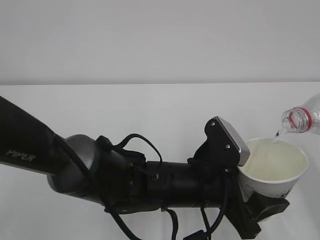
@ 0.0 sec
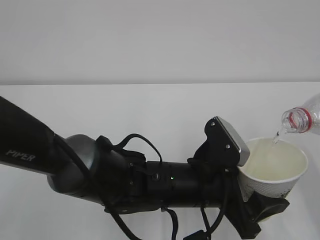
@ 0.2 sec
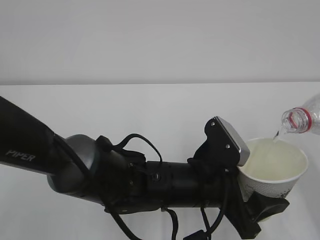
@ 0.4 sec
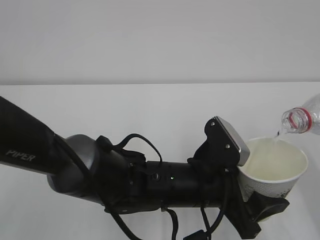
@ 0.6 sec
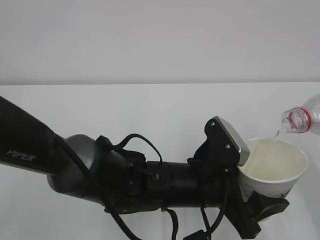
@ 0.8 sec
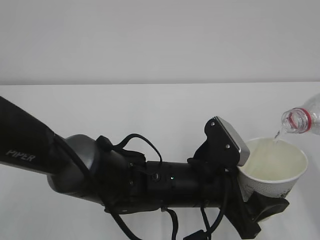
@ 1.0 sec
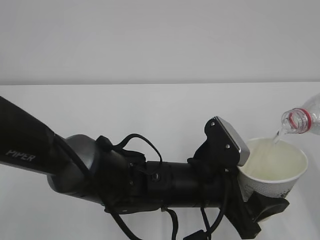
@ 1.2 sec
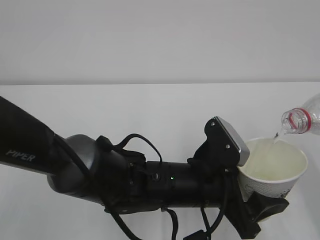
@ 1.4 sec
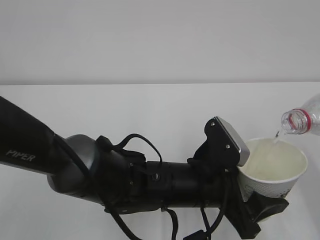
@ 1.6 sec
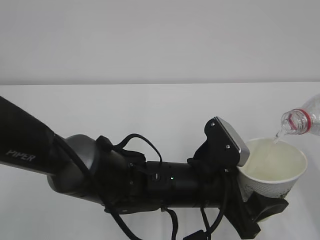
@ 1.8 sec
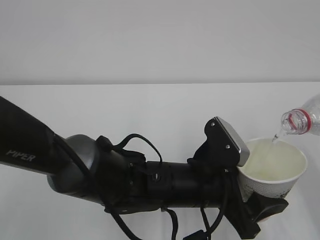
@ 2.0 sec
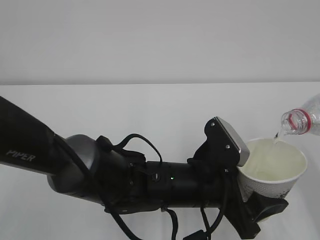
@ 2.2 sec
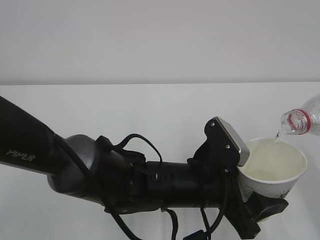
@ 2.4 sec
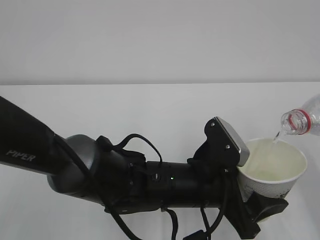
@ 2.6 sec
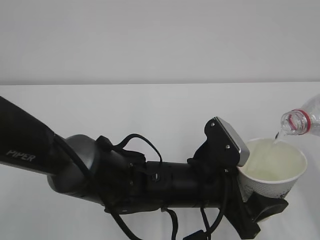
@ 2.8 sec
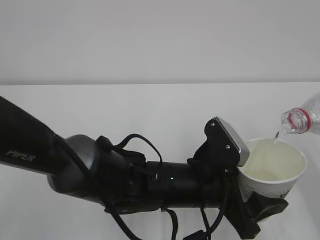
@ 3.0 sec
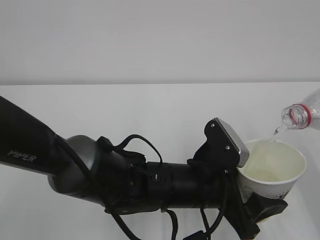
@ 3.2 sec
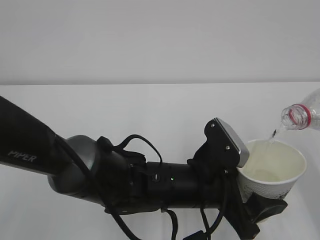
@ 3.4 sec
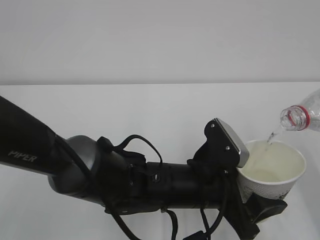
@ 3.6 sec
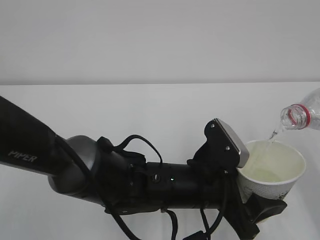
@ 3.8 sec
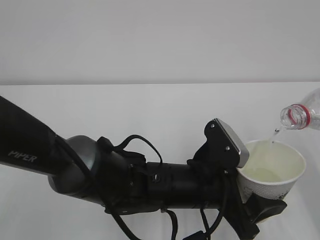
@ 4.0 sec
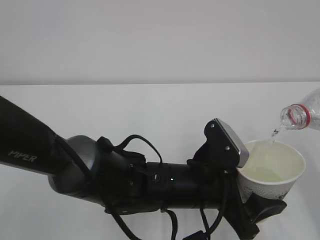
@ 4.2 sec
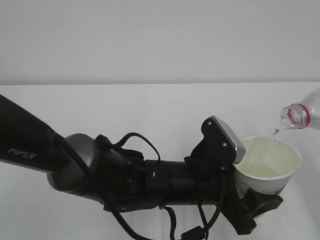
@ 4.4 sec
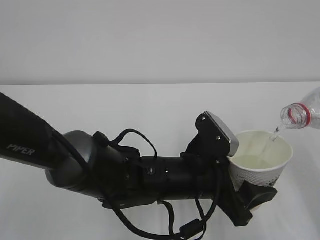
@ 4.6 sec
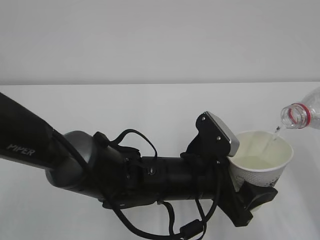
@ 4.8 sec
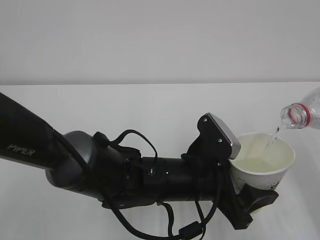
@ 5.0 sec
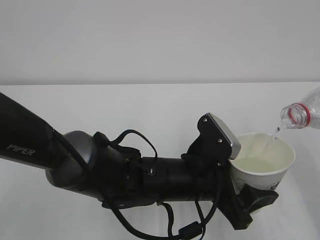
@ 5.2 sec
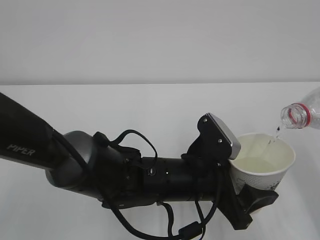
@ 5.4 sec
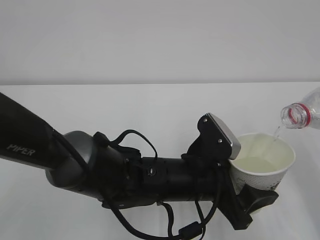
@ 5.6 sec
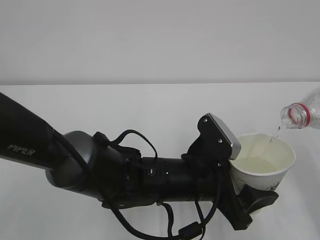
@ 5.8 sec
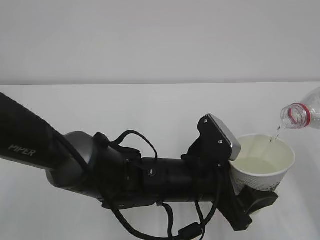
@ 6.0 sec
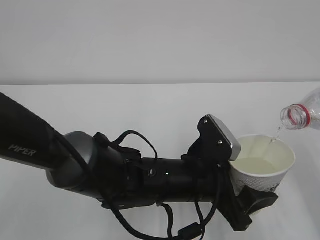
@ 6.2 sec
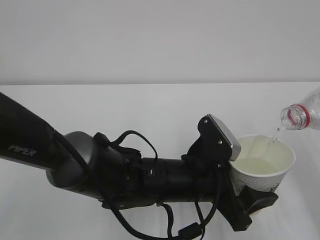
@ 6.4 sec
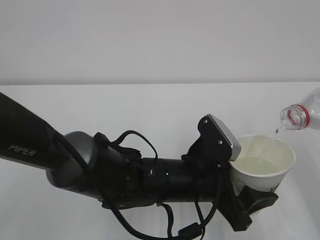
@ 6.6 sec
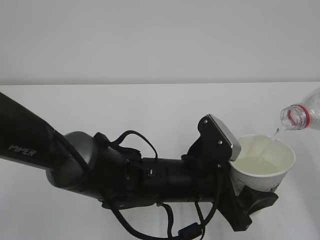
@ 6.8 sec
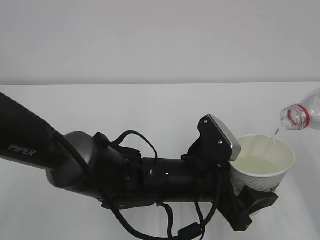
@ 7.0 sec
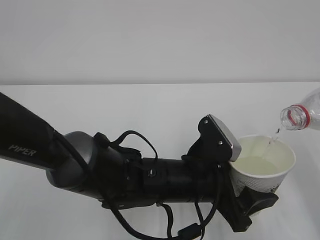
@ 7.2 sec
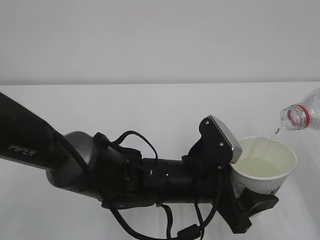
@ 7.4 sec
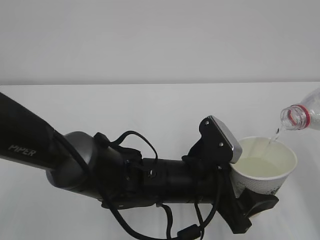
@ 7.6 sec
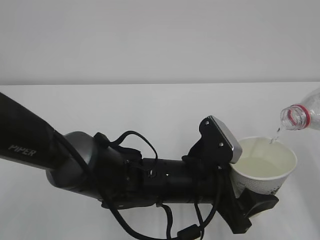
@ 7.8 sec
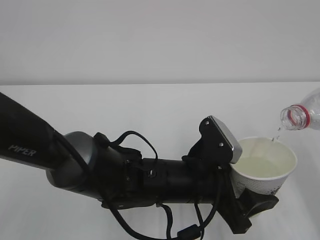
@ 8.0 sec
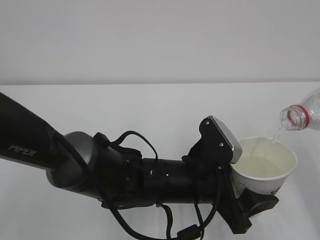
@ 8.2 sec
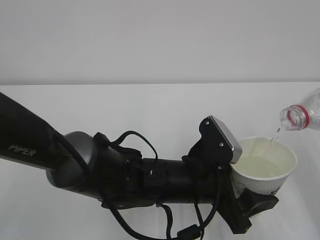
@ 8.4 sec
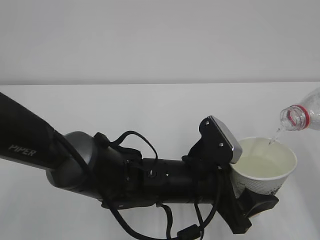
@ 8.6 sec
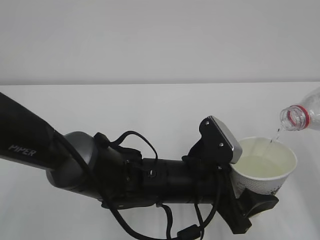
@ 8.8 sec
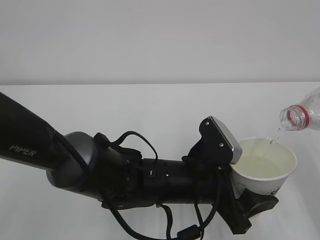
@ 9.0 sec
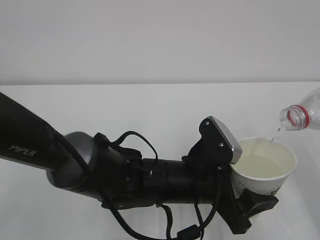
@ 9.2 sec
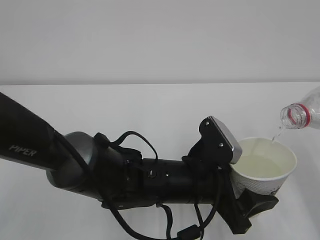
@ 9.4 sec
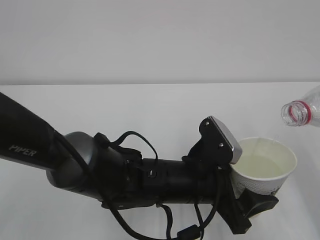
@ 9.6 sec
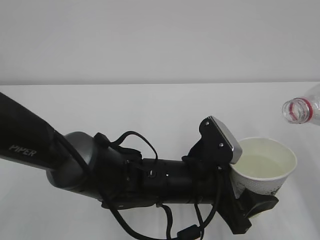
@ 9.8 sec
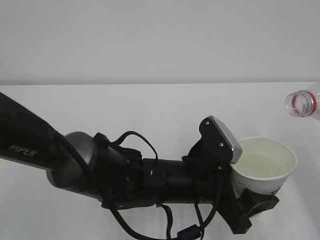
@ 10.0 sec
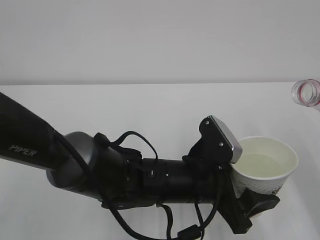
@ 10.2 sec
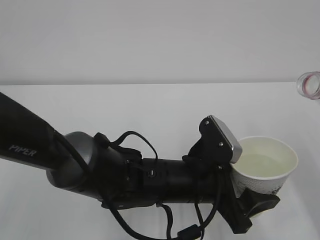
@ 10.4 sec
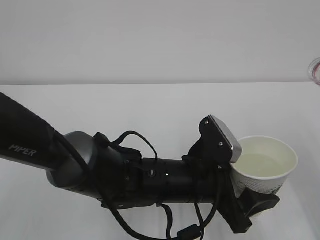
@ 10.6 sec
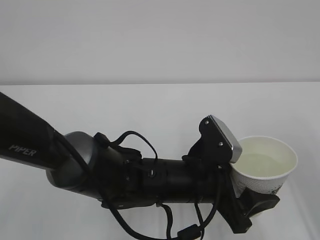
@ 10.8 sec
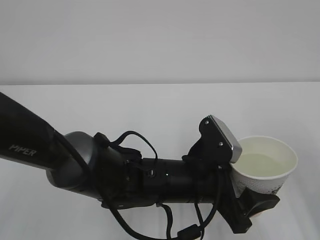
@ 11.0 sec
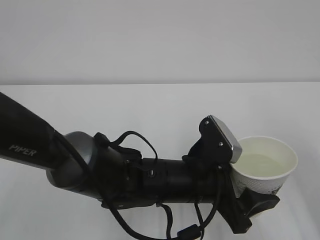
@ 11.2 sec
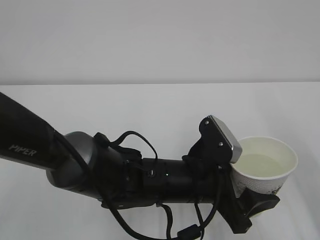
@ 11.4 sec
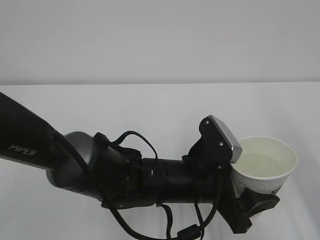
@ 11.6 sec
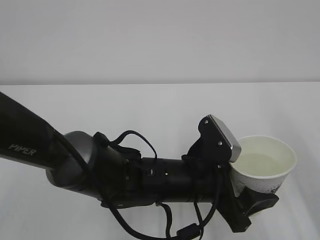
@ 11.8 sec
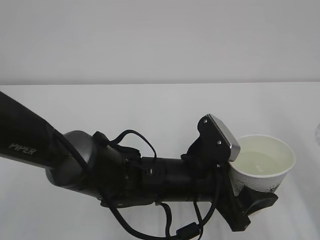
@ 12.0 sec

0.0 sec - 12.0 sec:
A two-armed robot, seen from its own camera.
0.0 sec - 7.6 sec: Both grippers stay about where they are.
7.6 sec - 9.0 sec: Both grippers stay put.

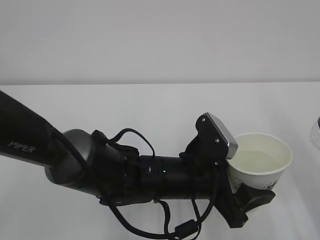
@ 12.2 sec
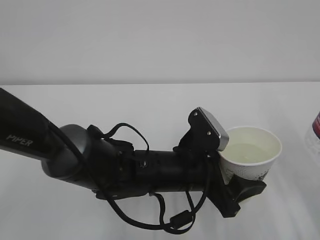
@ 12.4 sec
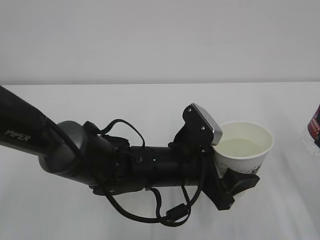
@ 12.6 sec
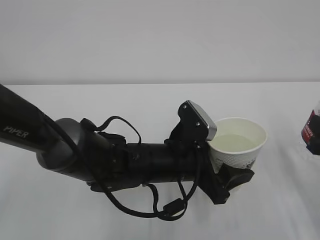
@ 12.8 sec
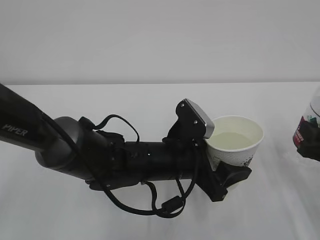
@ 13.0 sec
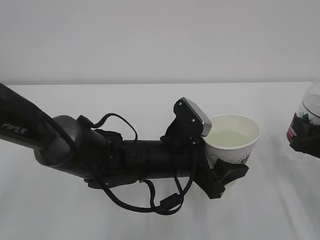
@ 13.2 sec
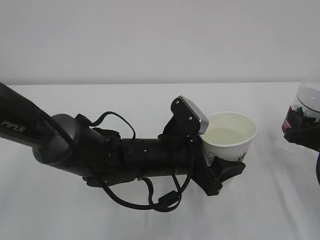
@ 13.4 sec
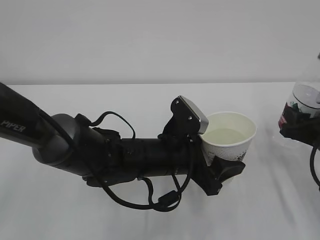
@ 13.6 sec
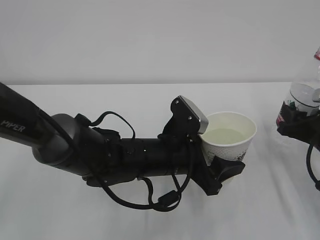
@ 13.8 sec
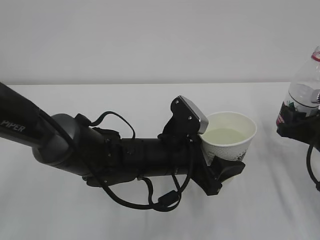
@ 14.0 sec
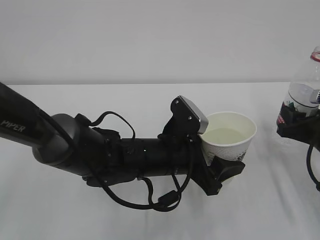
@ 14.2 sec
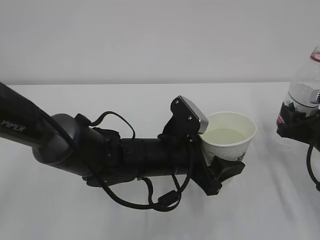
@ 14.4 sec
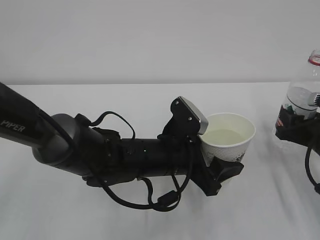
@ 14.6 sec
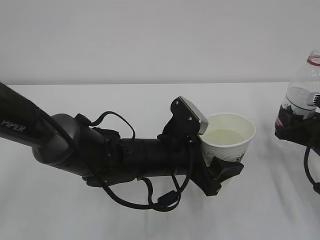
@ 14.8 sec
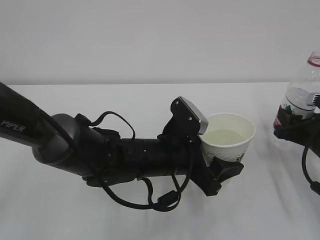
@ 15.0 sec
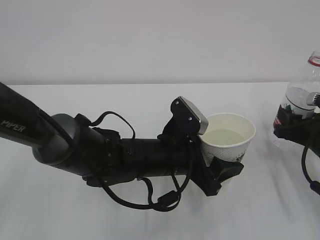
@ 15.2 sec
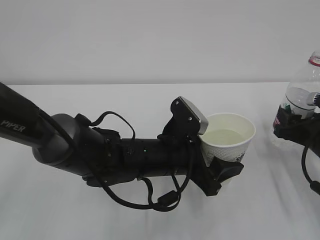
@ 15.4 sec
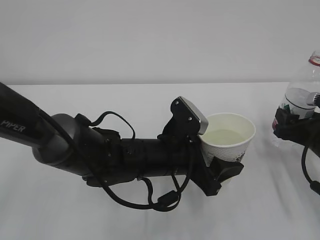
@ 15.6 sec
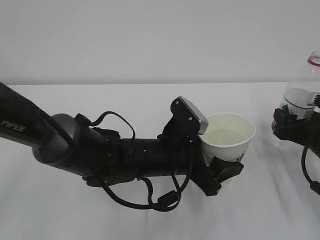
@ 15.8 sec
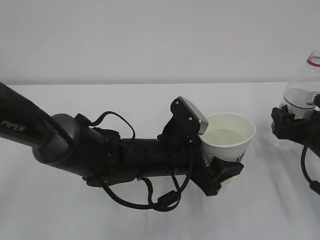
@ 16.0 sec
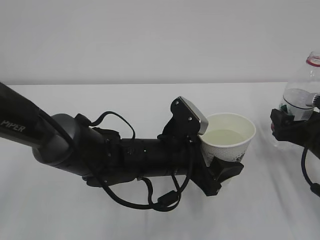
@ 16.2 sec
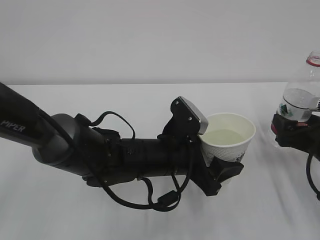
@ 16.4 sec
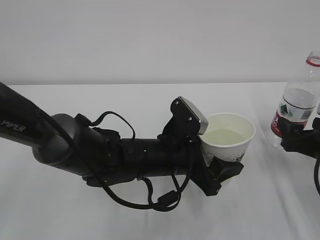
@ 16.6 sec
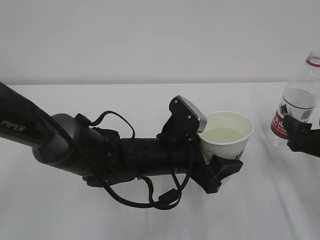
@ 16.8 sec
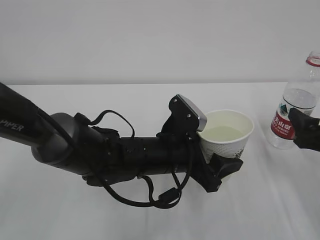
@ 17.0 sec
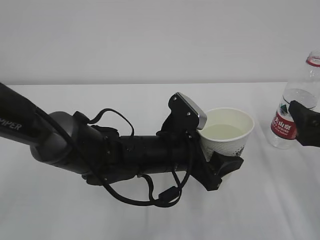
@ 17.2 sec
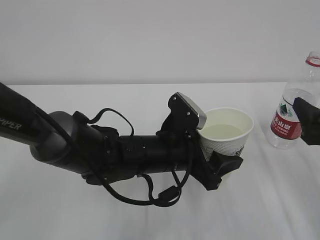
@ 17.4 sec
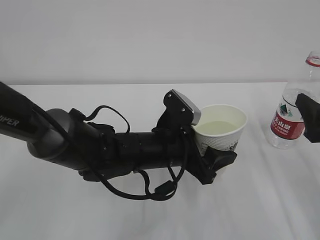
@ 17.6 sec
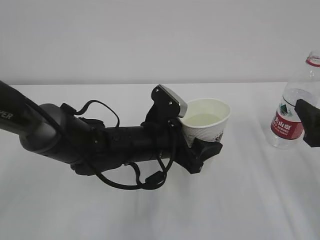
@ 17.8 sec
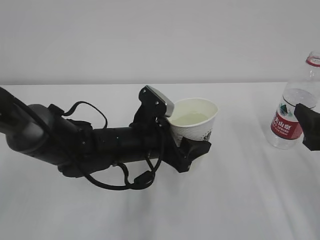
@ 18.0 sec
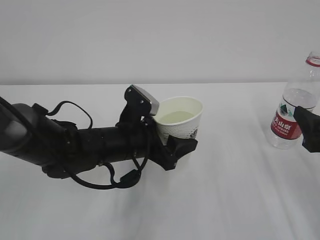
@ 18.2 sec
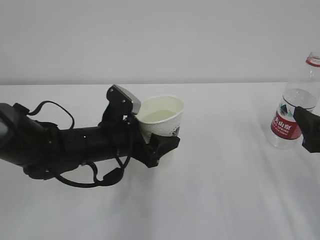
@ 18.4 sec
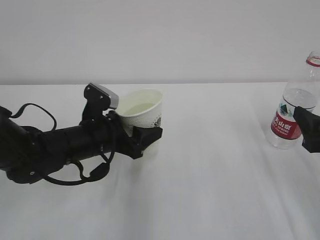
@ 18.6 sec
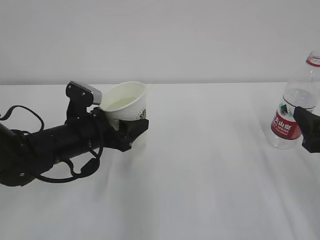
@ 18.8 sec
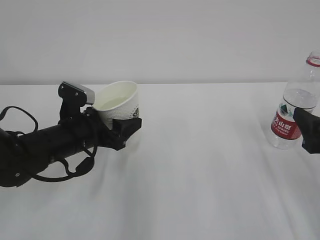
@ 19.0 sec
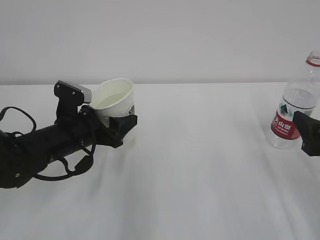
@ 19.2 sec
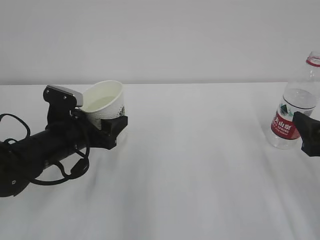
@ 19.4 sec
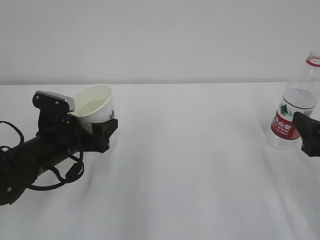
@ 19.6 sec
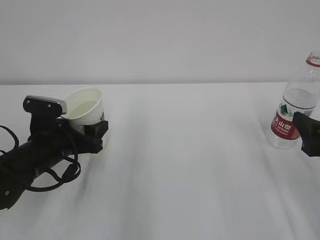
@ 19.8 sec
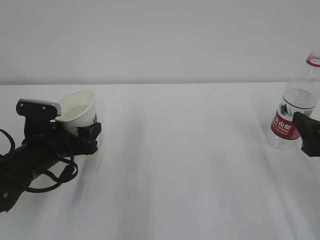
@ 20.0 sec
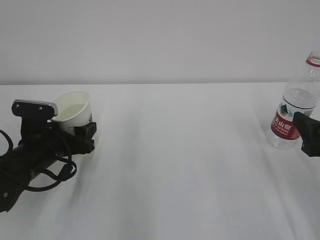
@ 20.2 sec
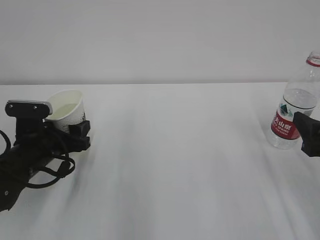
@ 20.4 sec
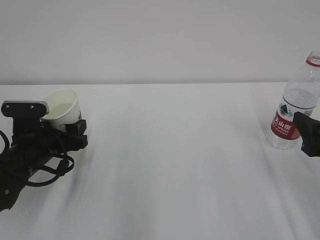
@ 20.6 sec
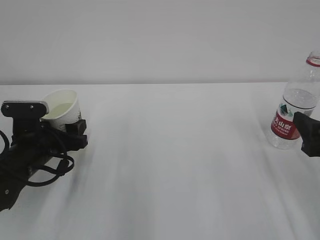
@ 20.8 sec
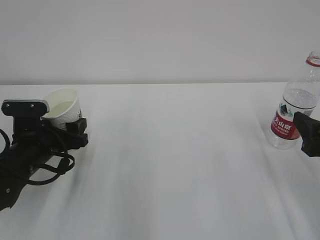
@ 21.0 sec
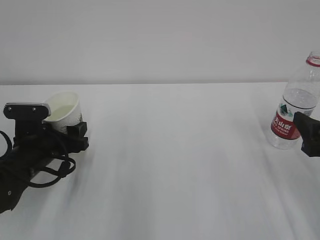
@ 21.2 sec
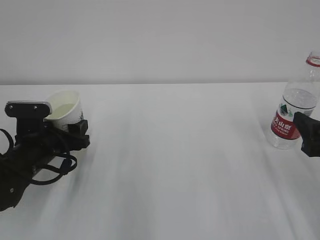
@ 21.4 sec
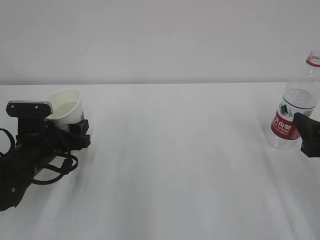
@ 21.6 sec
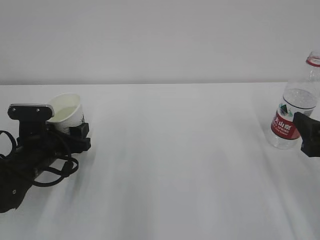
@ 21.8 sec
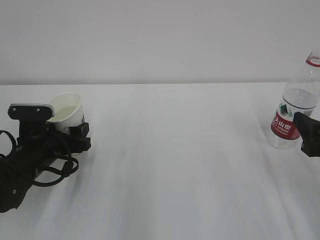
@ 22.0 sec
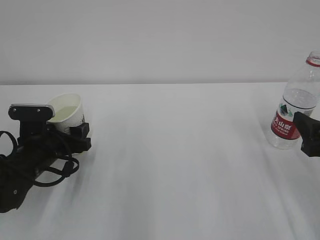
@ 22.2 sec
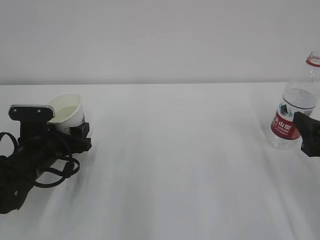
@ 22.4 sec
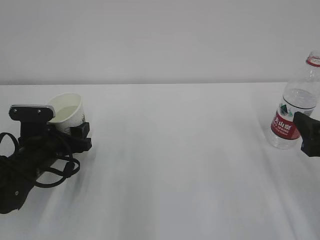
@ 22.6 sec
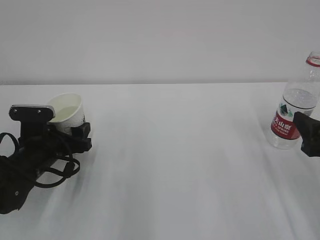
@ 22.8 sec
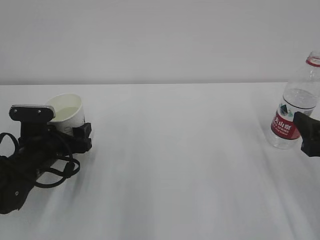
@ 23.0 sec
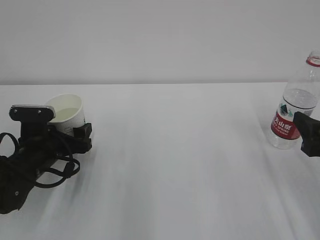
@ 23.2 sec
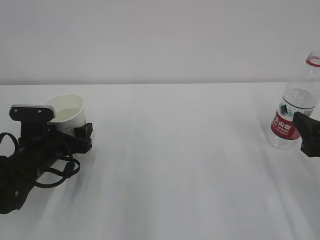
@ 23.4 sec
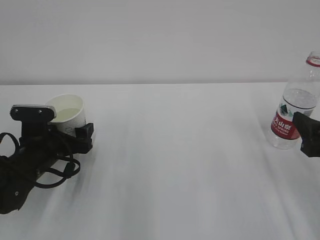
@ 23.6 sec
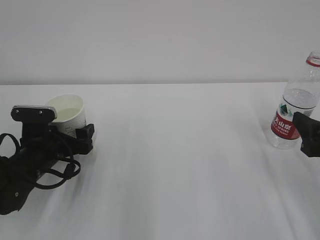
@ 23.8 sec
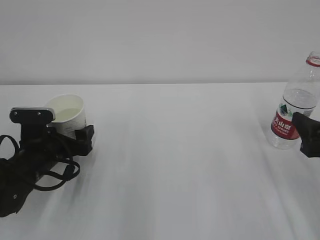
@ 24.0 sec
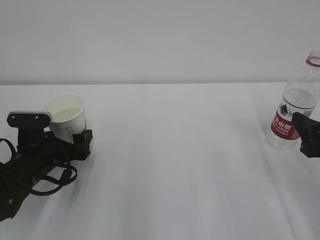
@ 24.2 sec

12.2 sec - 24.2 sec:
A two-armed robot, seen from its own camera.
12.2 sec - 13.8 sec: The right gripper is displaced forward and downward by roughly 15 cm.
13.8 sec - 15.2 sec: Both grippers stay about where they are.
15.2 sec - 16.6 sec: The right gripper opens up.
16.6 sec - 18.2 sec: The left gripper goes some 5 cm to the left. The right gripper travels upward by roughly 5 cm.
18.2 sec - 19.8 sec: The left gripper goes roughly 15 cm to the left.
19.8 sec - 21.2 sec: The grippers make only small movements.
21.2 sec - 22.6 sec: Neither gripper changes place.
22.6 sec - 24.2 sec: The left gripper opens.
